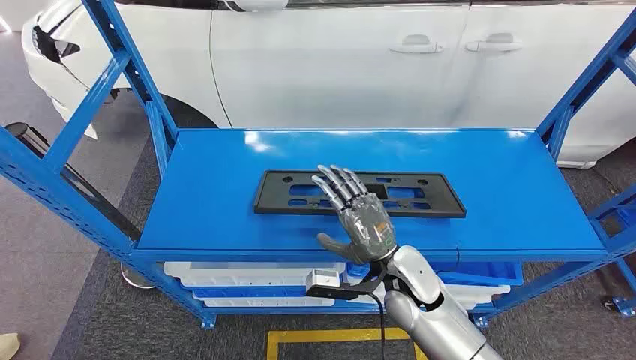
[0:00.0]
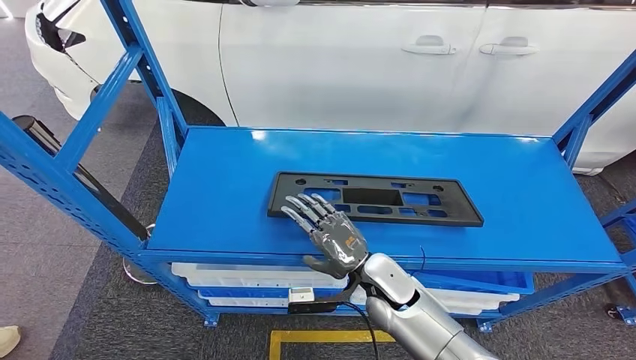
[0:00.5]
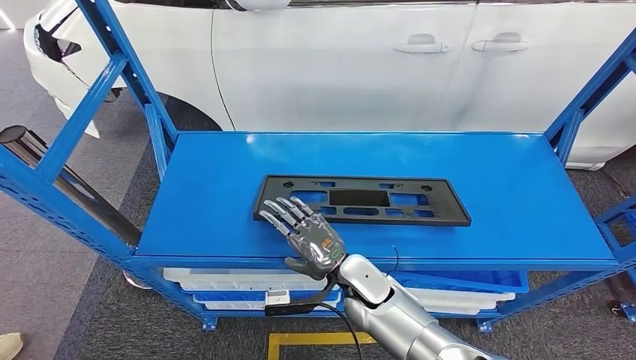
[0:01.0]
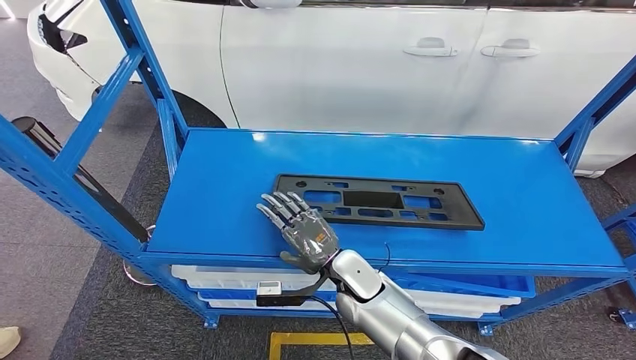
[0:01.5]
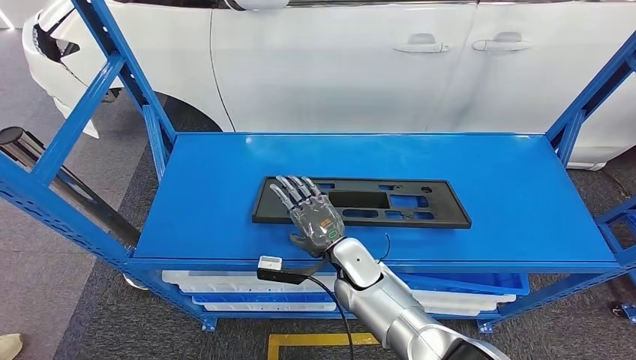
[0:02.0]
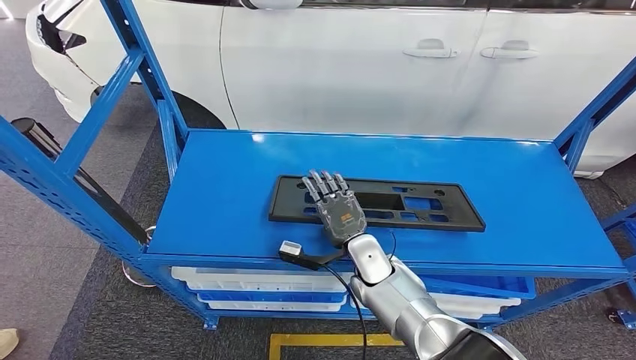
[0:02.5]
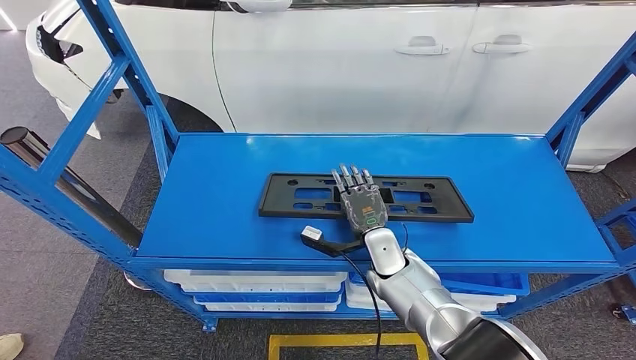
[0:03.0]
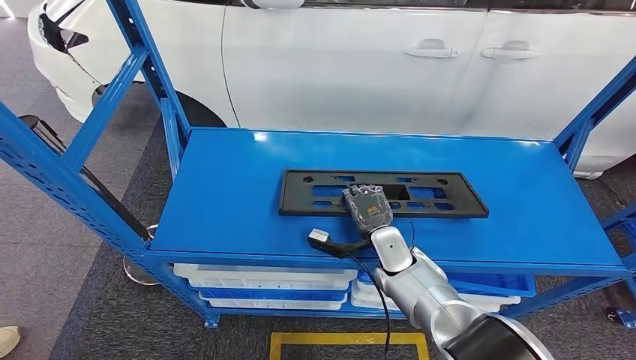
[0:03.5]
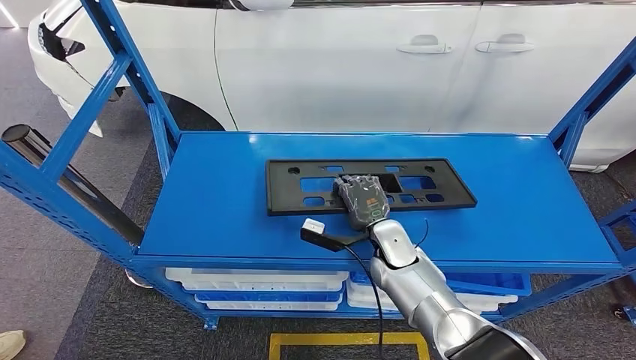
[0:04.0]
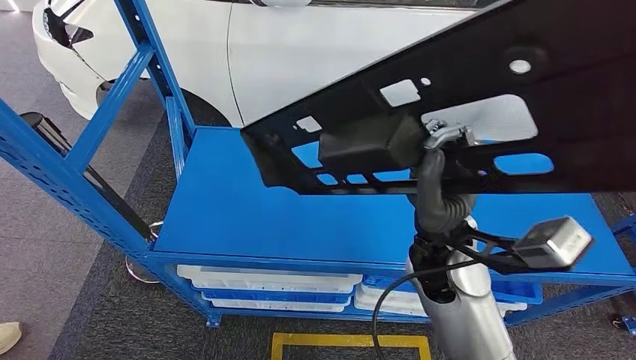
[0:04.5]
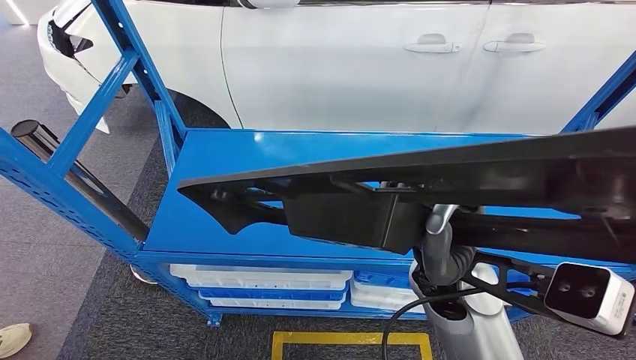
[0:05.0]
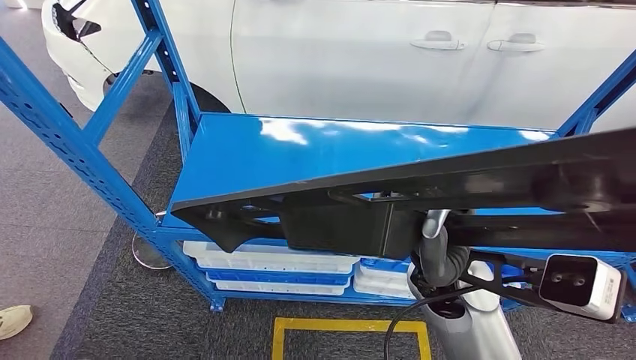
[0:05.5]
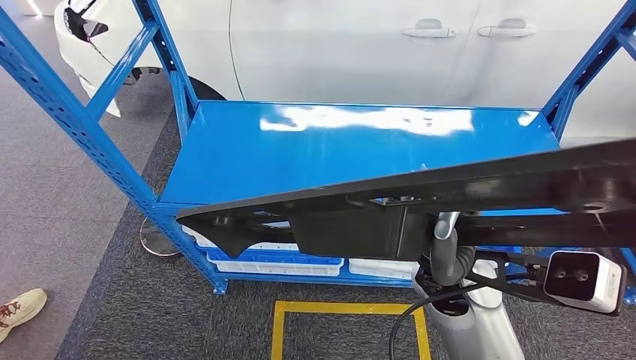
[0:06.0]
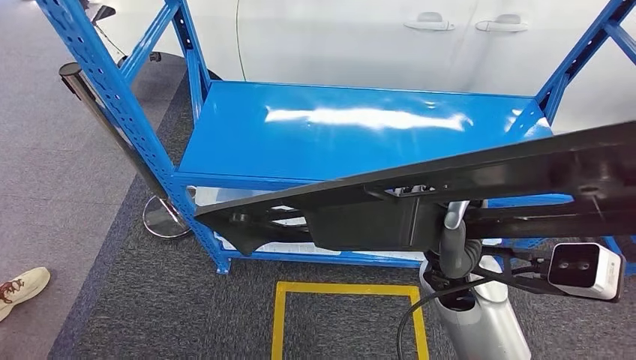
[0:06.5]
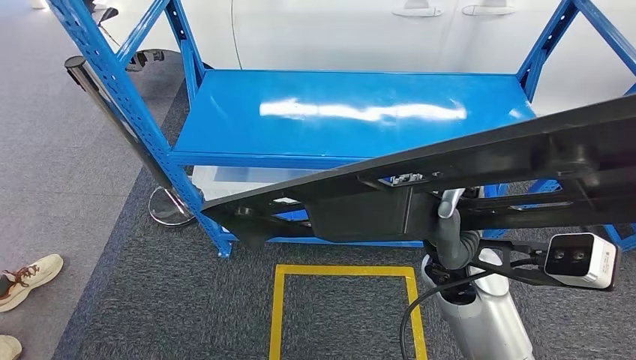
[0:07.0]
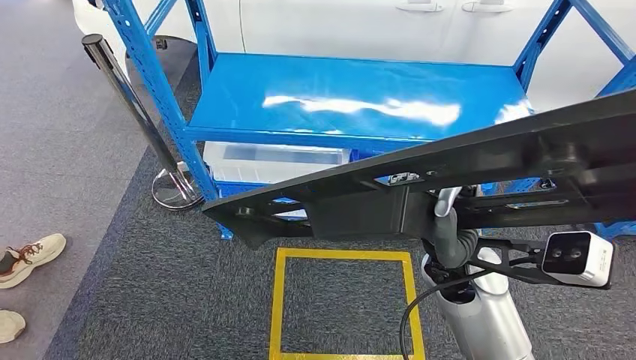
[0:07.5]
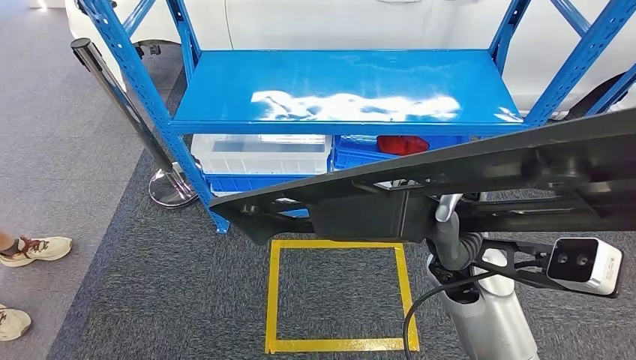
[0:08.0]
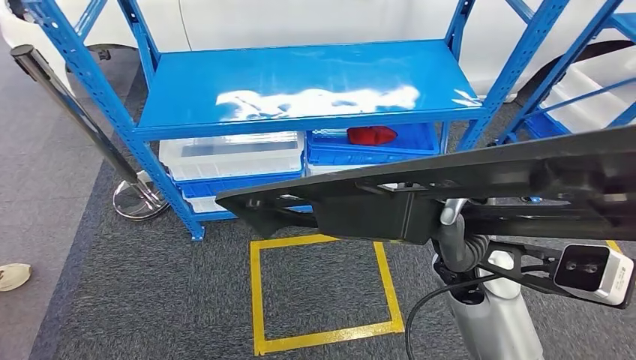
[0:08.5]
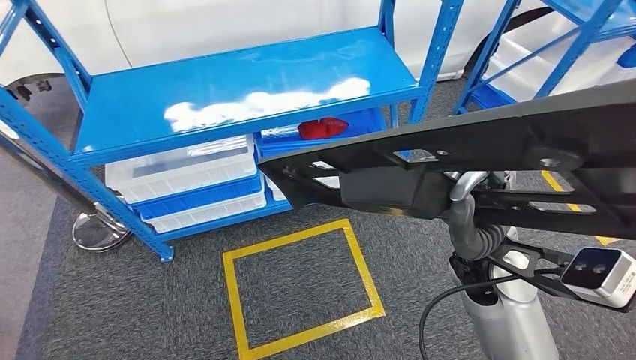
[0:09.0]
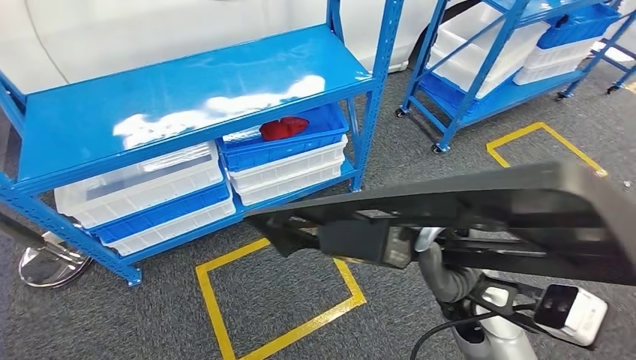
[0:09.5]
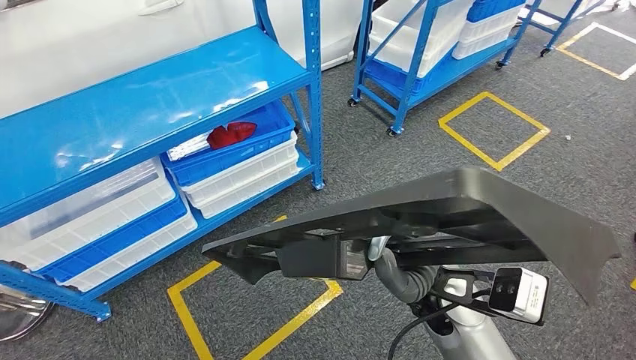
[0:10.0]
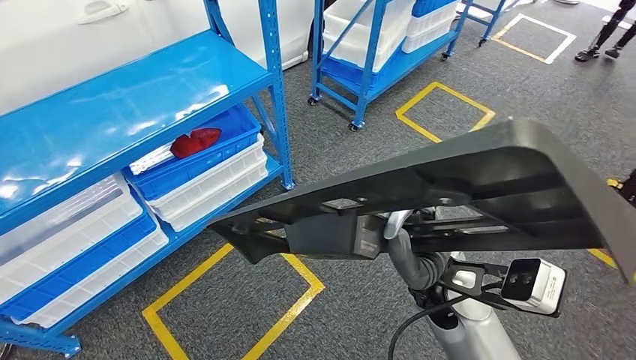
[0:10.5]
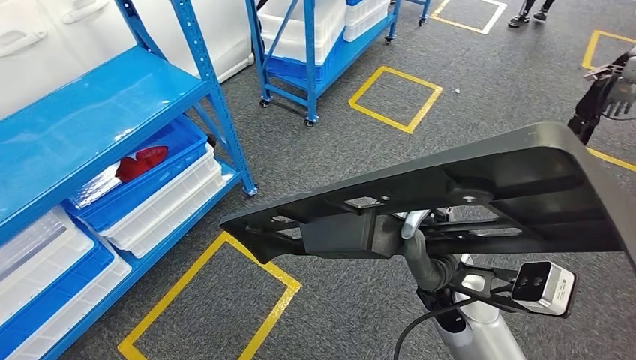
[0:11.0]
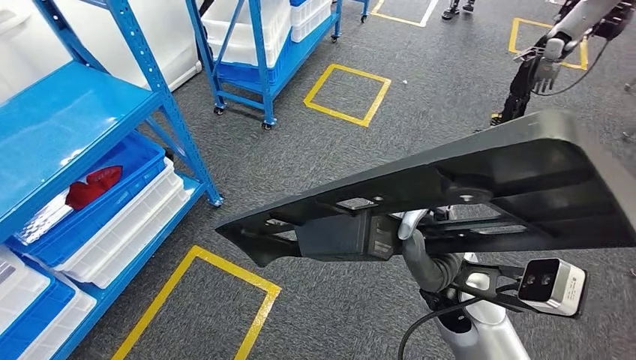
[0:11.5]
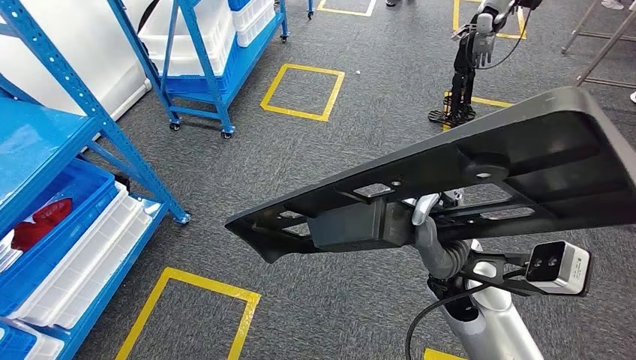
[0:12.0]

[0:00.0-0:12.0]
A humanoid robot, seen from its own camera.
Step, 0:00.0 to 0:06.0: Pick up the small component from the shelf.

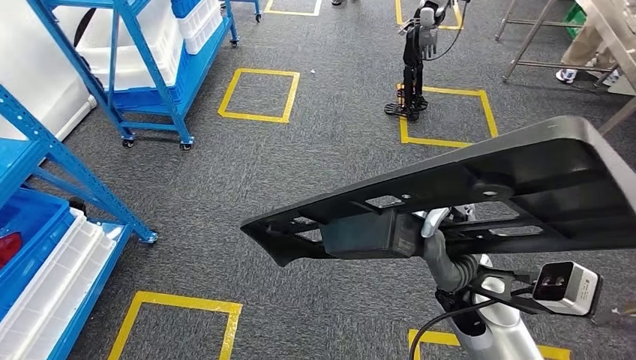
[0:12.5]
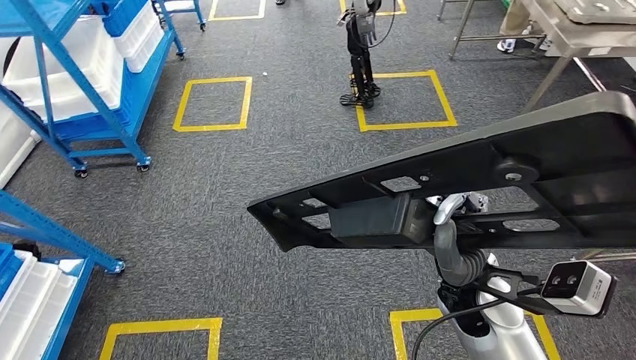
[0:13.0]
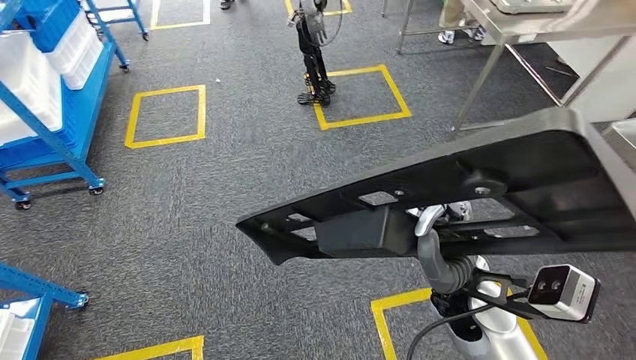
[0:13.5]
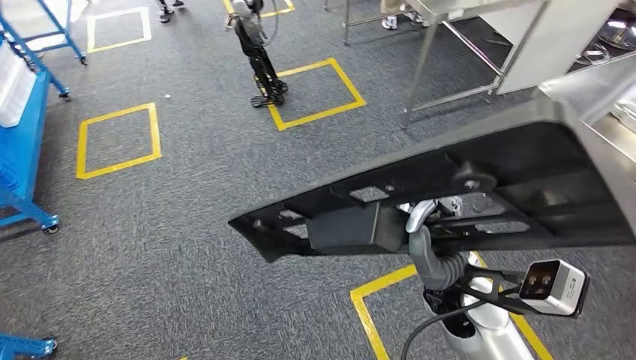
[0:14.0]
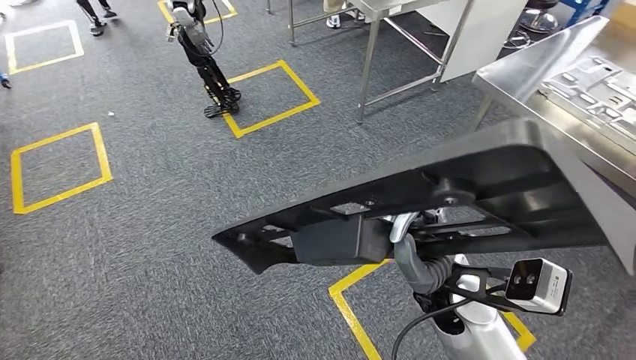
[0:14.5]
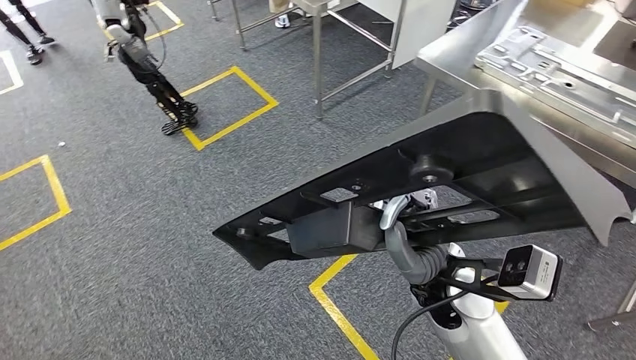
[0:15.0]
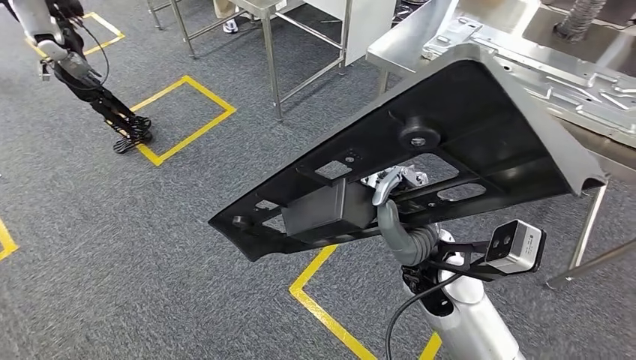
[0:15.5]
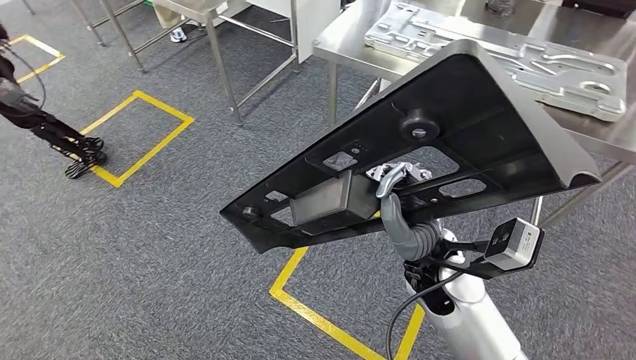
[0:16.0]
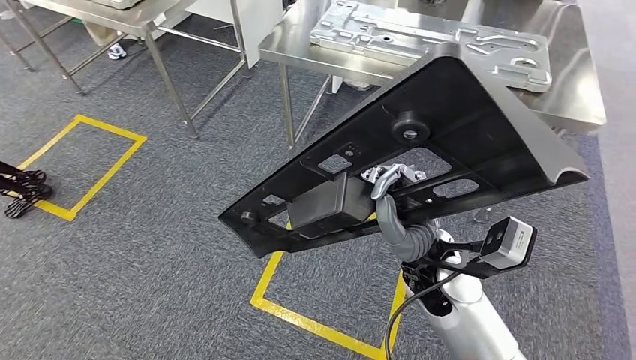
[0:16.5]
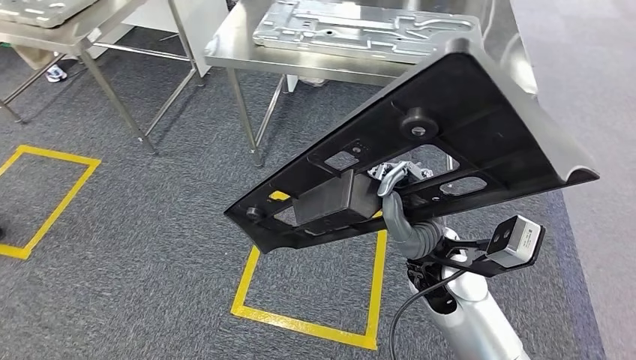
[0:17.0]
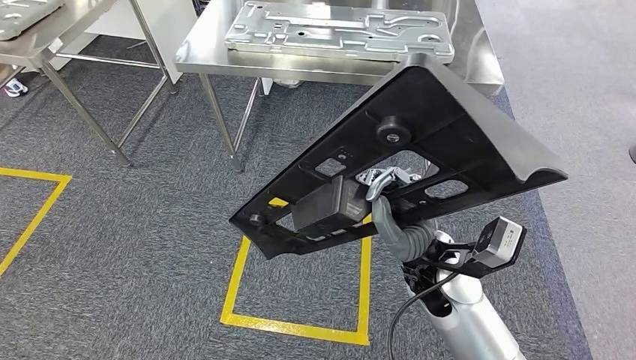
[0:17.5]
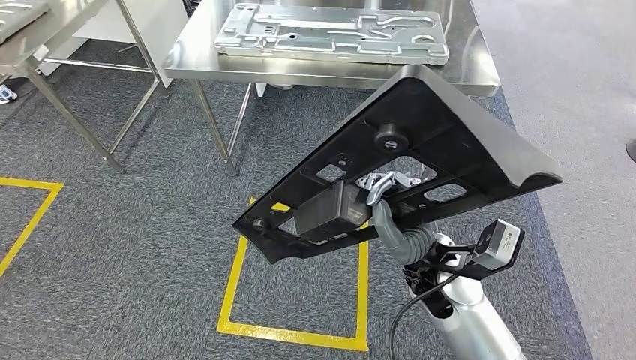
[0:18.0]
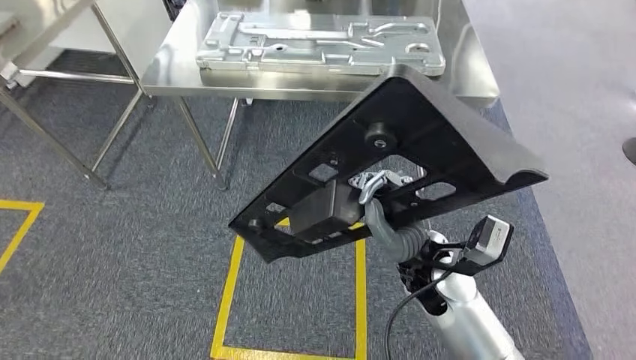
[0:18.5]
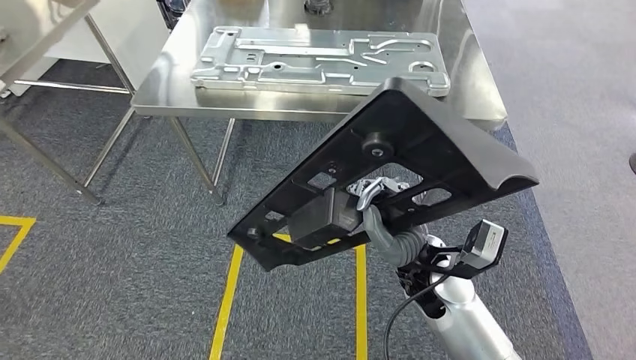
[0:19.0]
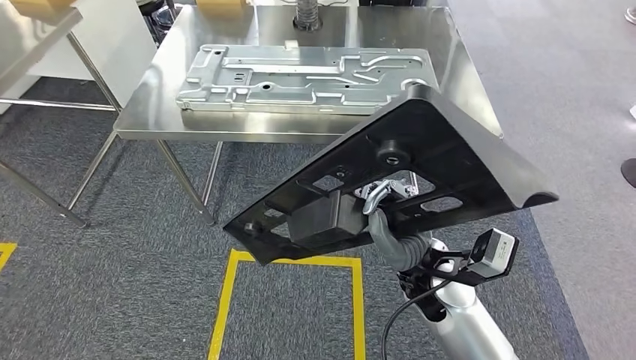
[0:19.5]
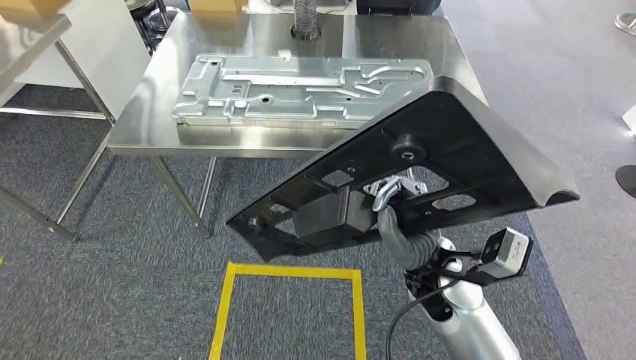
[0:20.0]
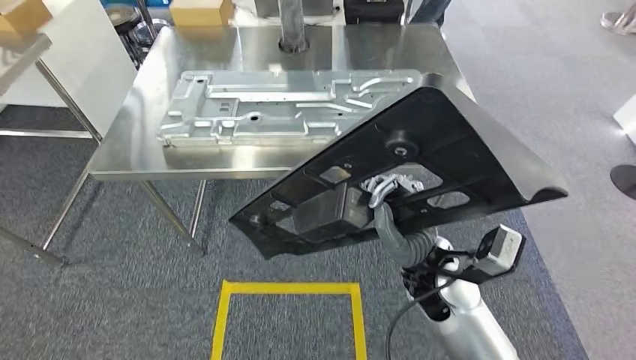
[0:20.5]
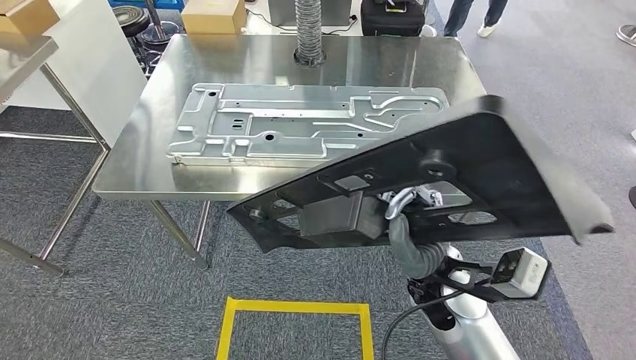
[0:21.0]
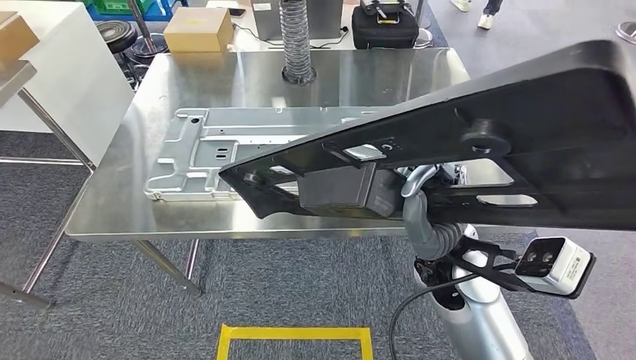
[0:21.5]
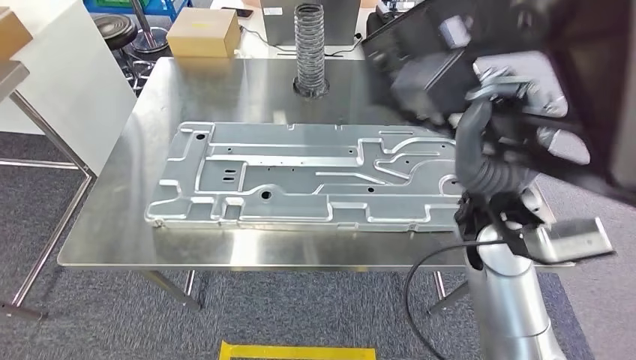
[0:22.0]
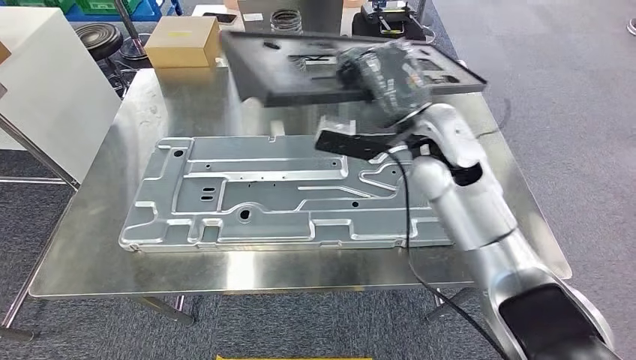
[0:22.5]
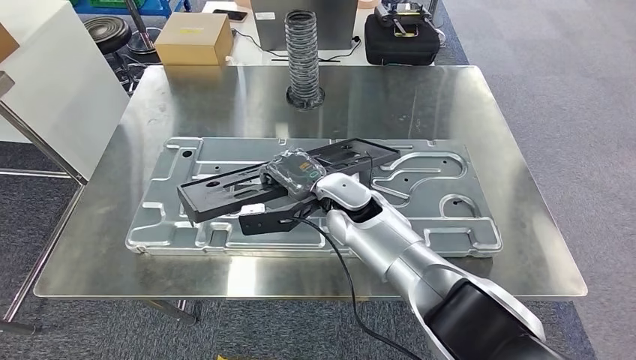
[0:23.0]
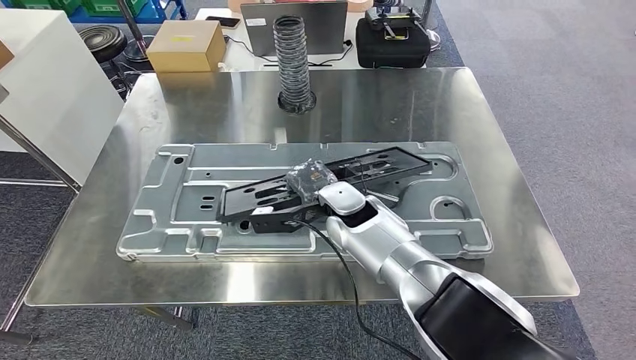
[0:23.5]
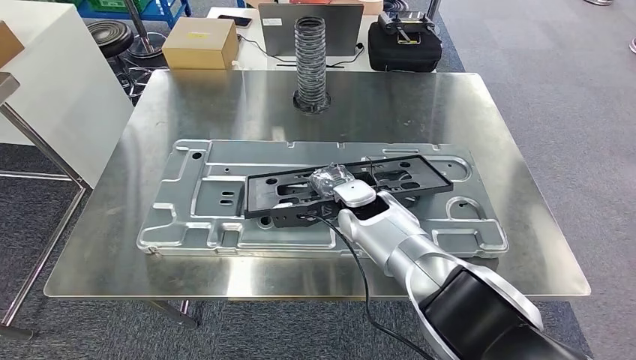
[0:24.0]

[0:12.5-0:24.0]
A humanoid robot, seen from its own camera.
Step, 0:12.5 to 0:20.5: Move the small component to the workbench.
